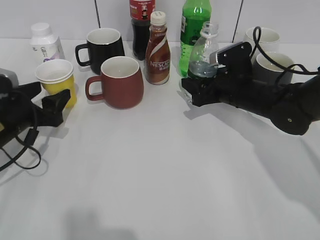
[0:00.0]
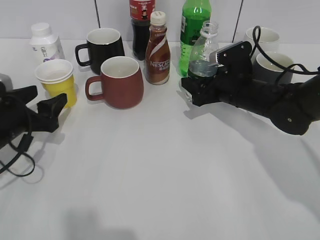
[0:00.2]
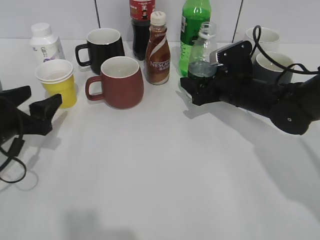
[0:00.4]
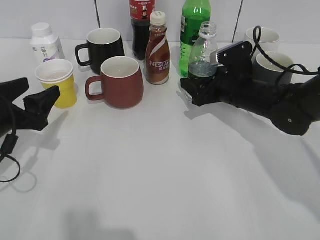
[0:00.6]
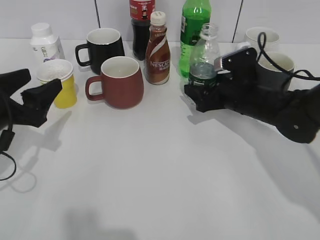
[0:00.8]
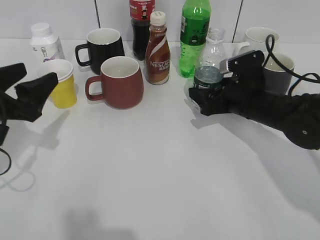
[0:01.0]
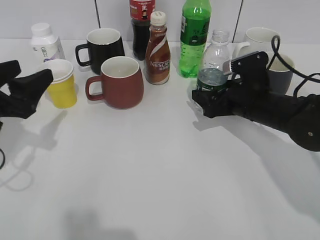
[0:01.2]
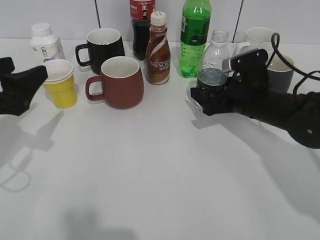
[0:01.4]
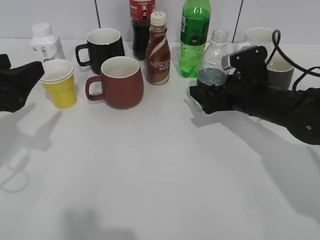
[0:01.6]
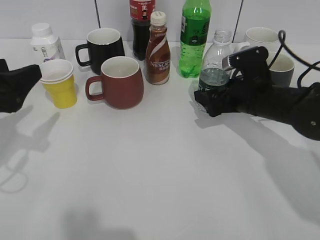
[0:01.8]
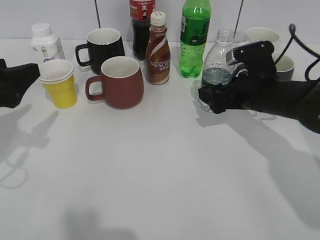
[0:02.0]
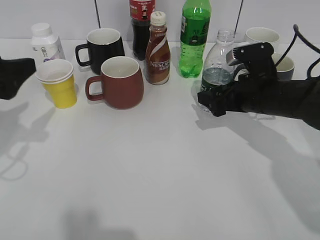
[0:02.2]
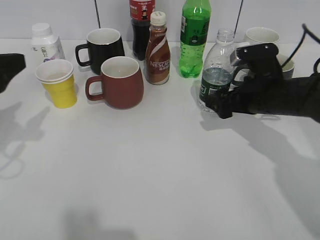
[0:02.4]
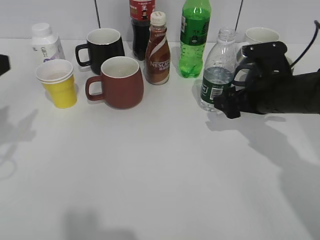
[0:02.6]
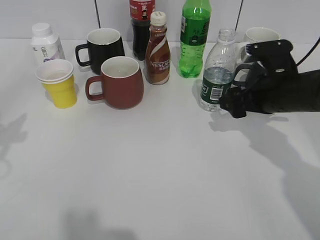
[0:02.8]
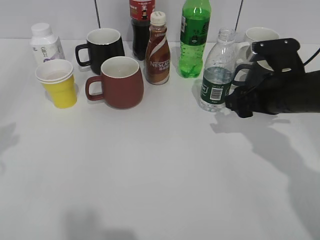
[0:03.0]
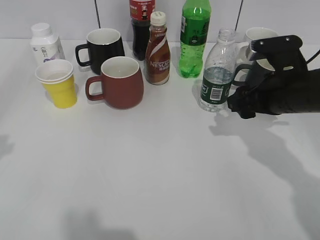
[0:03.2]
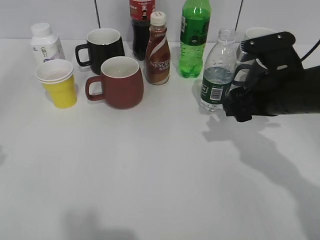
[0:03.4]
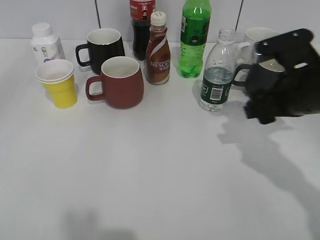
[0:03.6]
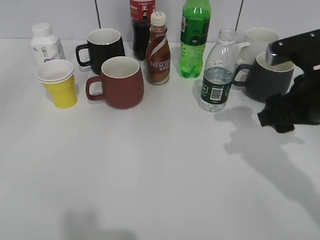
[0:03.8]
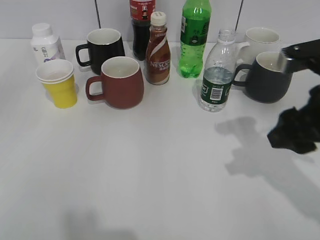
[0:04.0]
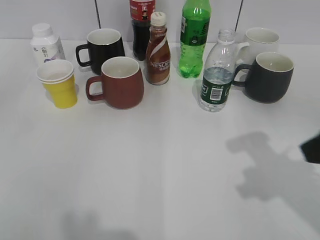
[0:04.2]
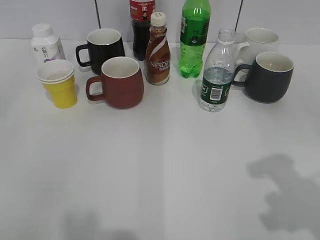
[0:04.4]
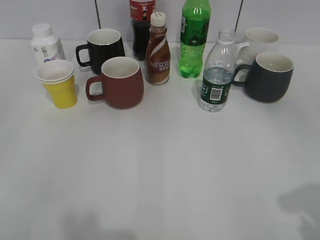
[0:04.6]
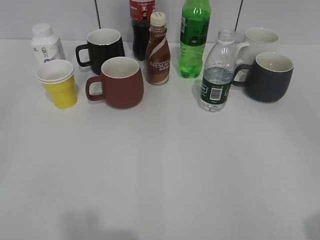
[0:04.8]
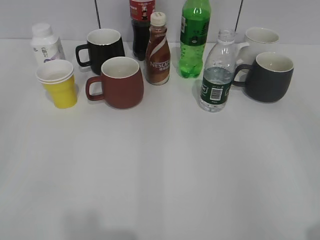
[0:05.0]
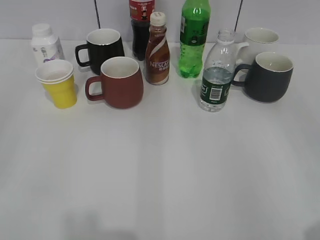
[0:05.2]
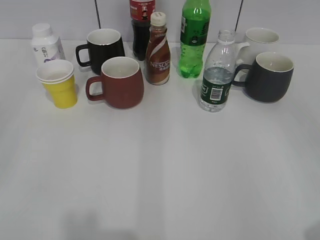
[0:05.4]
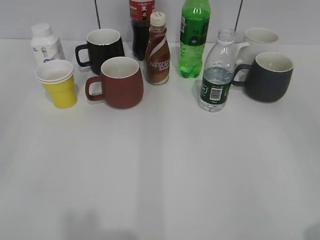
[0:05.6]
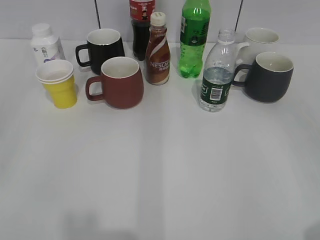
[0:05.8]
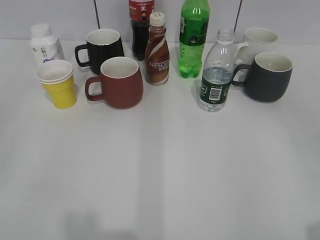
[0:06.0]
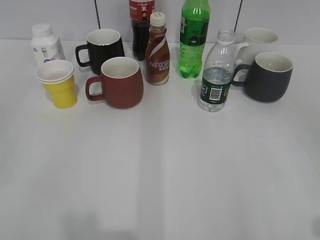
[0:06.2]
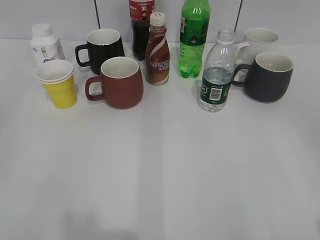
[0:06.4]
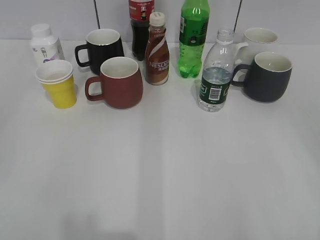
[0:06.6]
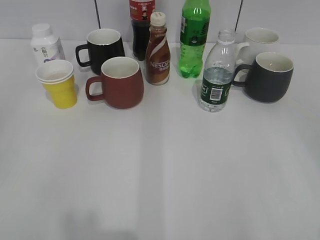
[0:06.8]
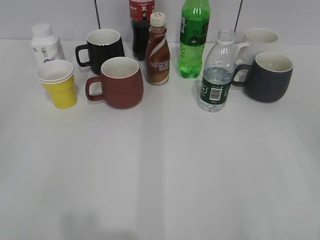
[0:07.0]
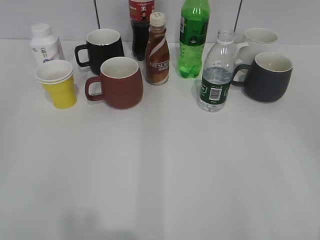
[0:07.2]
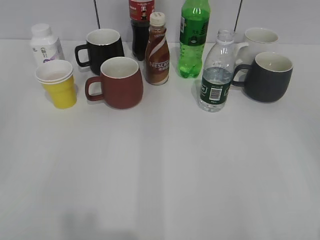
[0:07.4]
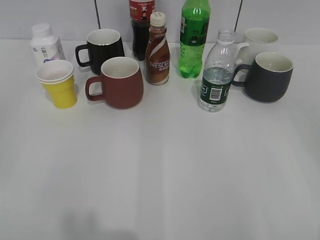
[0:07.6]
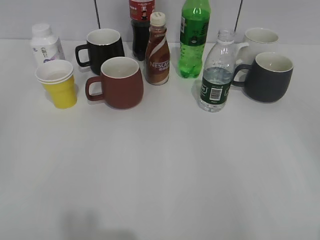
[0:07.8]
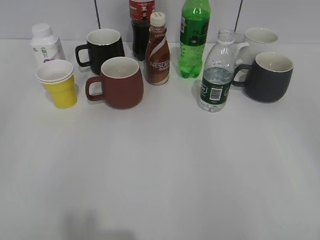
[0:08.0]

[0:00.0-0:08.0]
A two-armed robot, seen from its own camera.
Step, 0:00.0 to 0:02.4: Place the water bottle on the table with right gripper.
0:00.0 to 0:01.6: The left gripper shifts about 10 cm upward and backward, while the right gripper opens up.
0:01.6 to 0:03.2: The right gripper moves upward, roughly 5 cm, and closes its fingers. The left gripper heads upward, covering some 10 cm.
0:03.2 to 0:04.8: The left gripper moves backward, some 20 cm. Meanwhile the right gripper goes about 30 cm backward, upward and to the right, and closes.

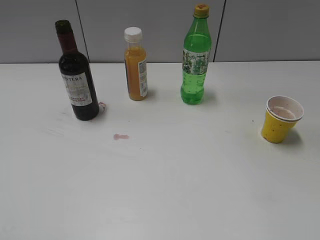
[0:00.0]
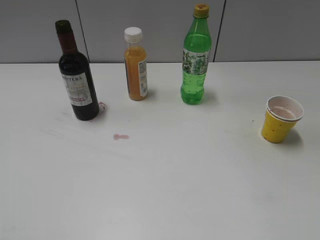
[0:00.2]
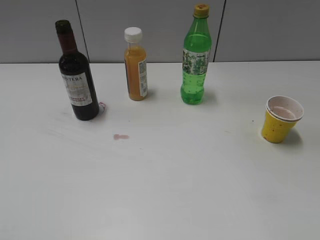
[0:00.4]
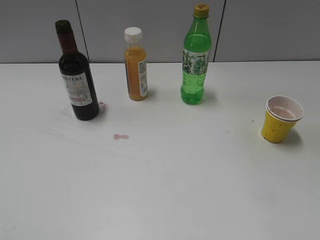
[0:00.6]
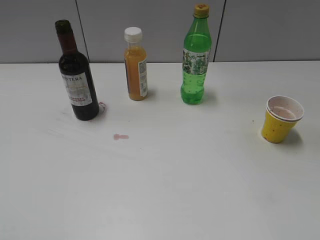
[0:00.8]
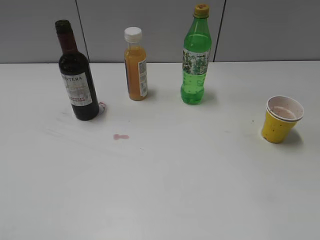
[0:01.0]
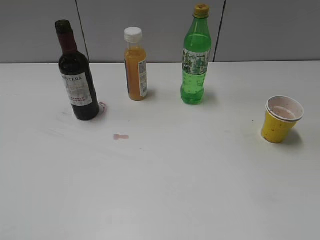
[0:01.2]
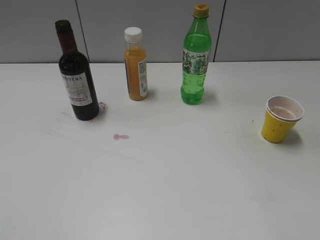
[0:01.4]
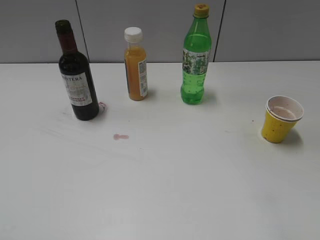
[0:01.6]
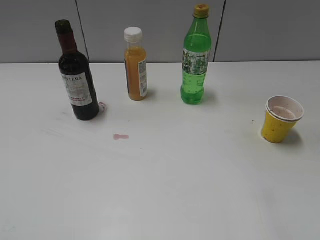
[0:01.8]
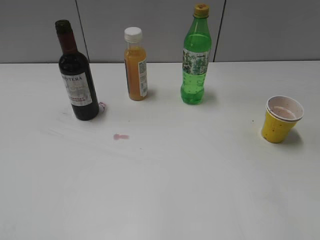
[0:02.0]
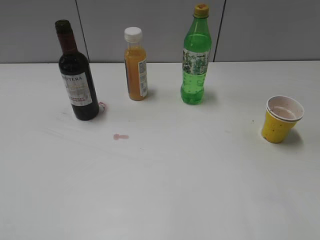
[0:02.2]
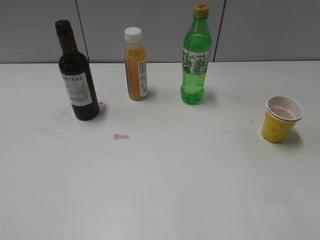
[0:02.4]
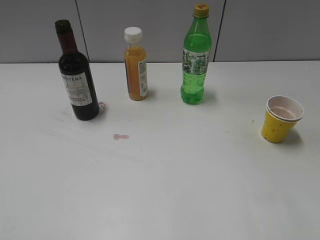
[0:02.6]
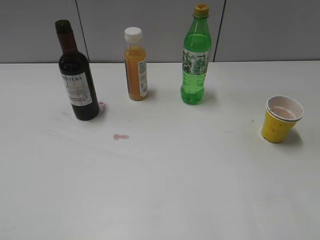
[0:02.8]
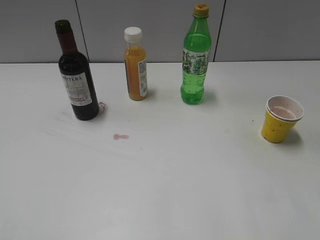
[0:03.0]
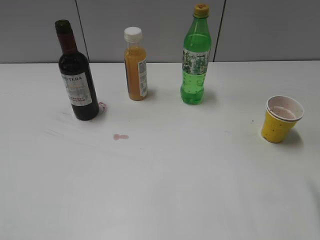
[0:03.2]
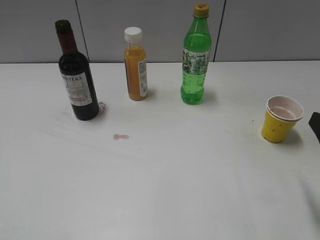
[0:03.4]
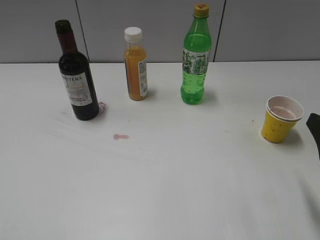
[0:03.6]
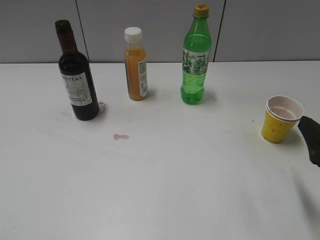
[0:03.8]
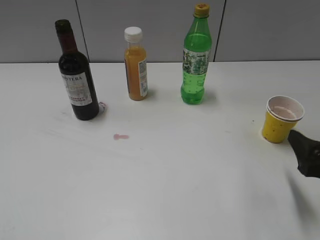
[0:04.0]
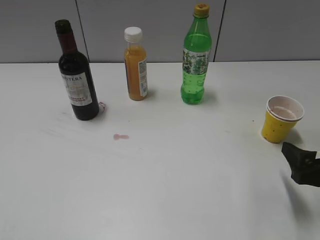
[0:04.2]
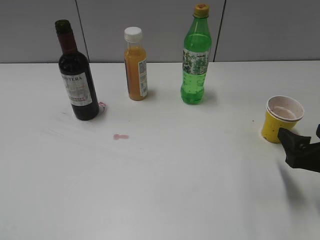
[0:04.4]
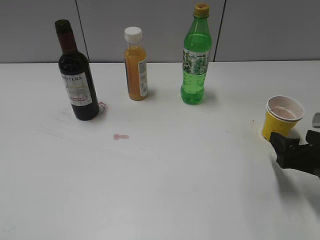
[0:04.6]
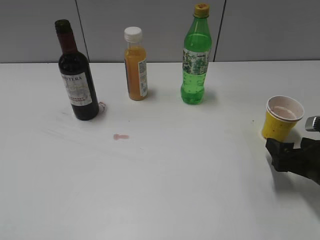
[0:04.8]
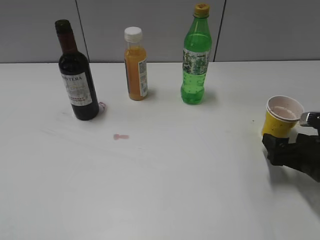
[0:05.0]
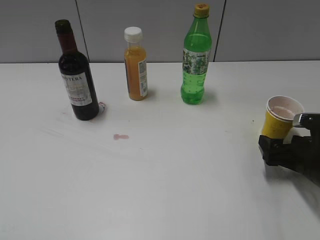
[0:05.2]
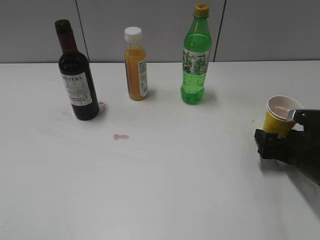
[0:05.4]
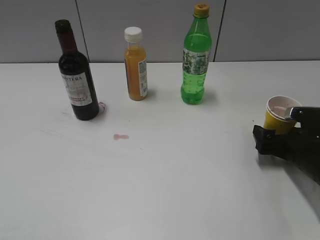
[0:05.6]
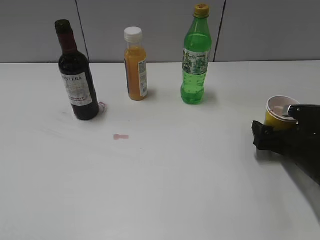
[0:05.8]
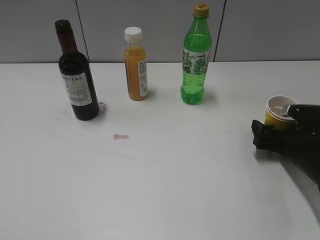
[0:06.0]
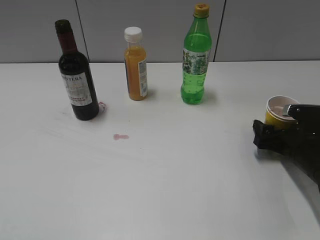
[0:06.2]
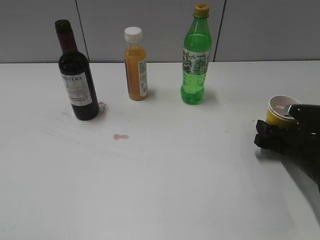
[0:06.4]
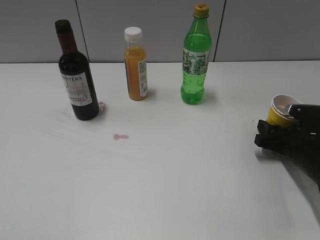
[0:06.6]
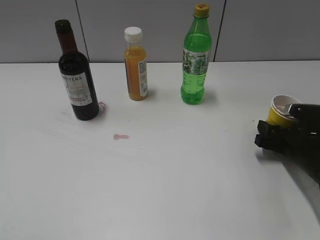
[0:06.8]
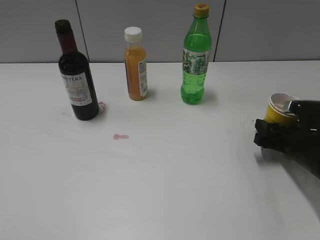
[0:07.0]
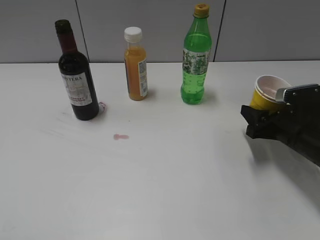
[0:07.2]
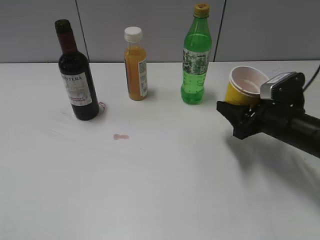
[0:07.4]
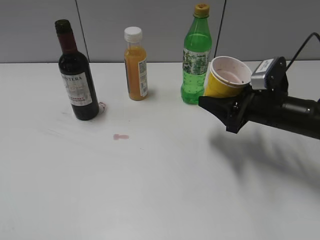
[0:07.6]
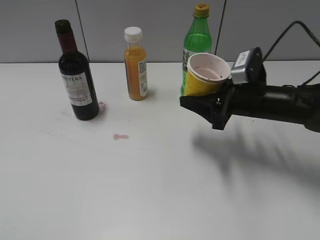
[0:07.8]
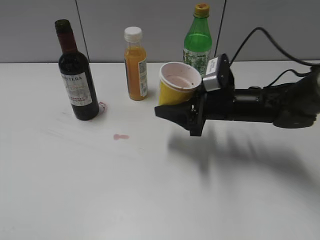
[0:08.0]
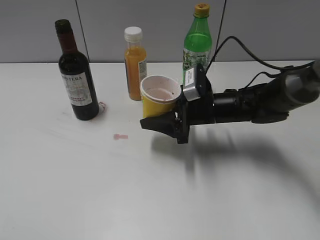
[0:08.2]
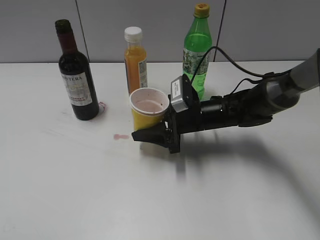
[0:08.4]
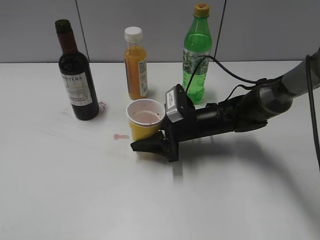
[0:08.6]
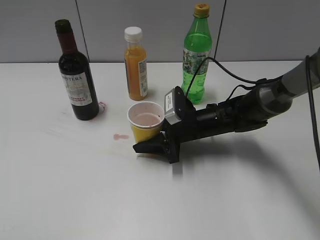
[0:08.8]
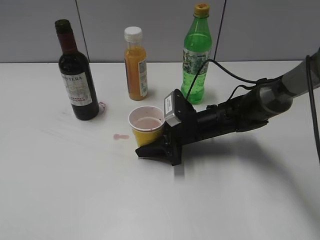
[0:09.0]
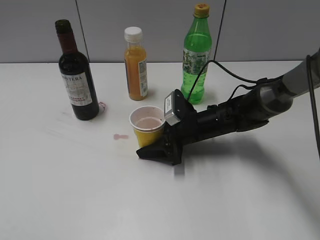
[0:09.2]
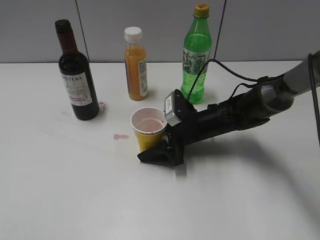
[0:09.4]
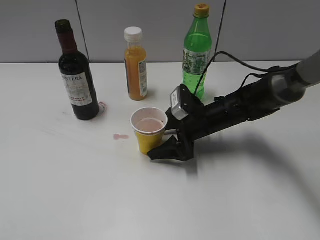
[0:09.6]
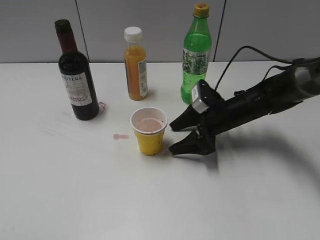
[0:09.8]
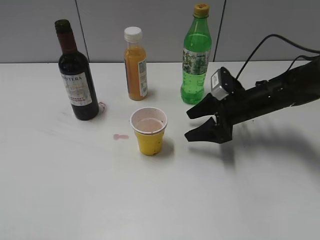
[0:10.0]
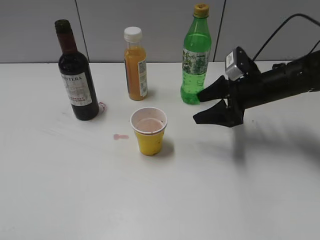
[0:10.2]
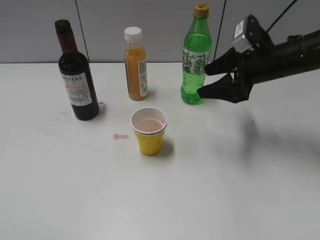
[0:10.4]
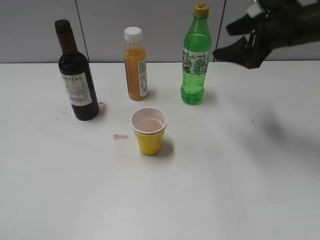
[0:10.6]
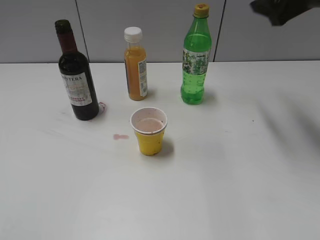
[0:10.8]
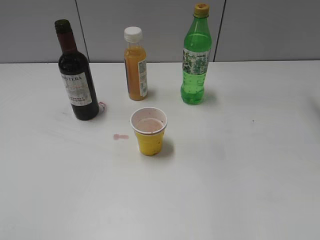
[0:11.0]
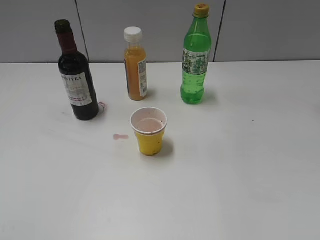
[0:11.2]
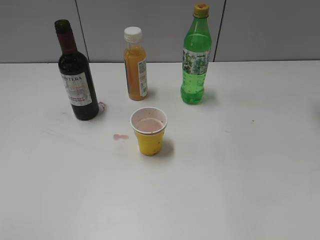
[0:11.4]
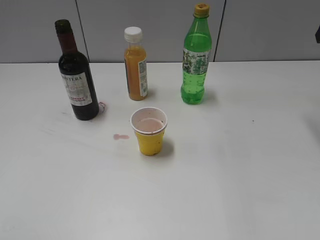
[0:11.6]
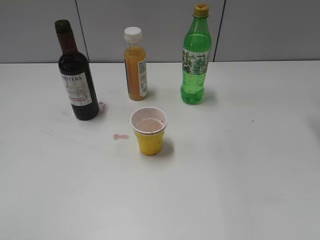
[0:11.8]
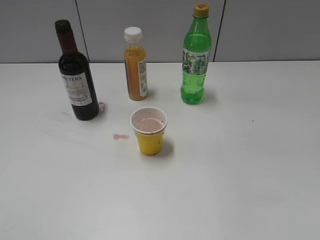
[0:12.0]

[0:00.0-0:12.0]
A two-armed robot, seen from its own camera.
Step, 0:01.0 to 0:06.4: Grasp the yellow paper cup with right gripper.
Step, 0:06.6 to 0:09.6: Place the yellow paper cup on the table with right gripper.
0:03.0 to 0:04.4: The right gripper moves downward and forward, roughly 10 cm.
0:04.4 to 0:06.0: The right gripper shifts about 10 cm forward and downward.
0:06.0 to 0:07.6: The right gripper shifts some 10 cm upward and to the left, and closes up.
0:07.6 to 0:09.0: The right gripper is displaced to the left and downward by roughly 15 cm.
0:09.0 to 0:10.4: The right gripper is displaced upward and to the right by approximately 20 cm, and opens up.
0:10.4 to 0:12.0: The right gripper goes about 20 cm upward and to the right.

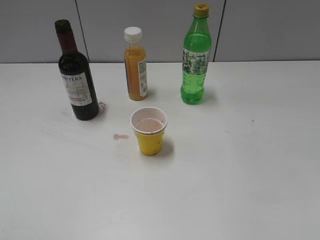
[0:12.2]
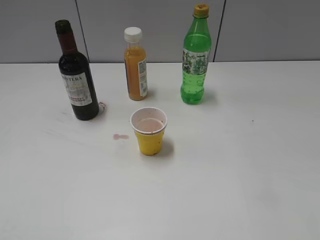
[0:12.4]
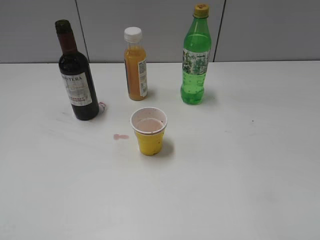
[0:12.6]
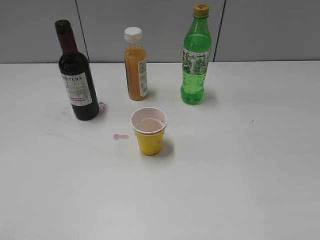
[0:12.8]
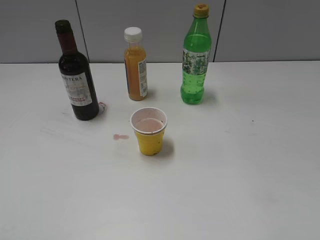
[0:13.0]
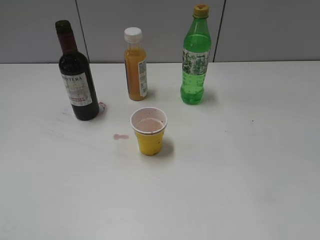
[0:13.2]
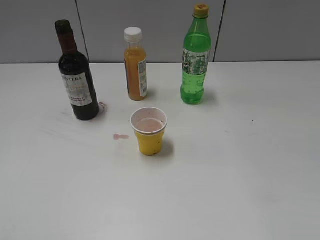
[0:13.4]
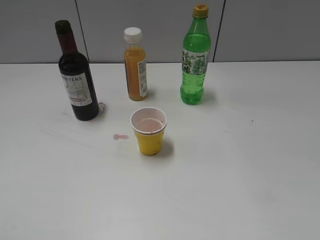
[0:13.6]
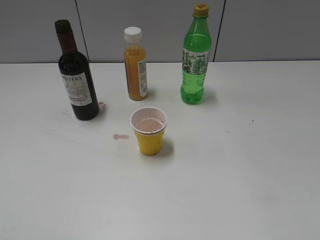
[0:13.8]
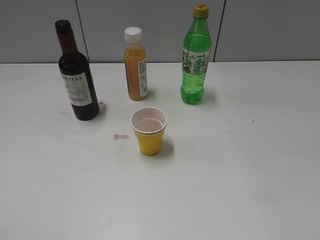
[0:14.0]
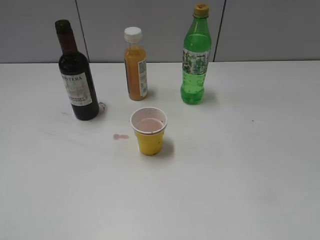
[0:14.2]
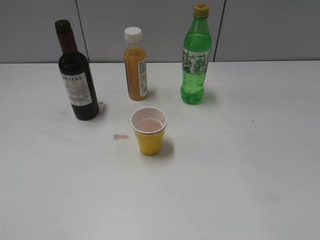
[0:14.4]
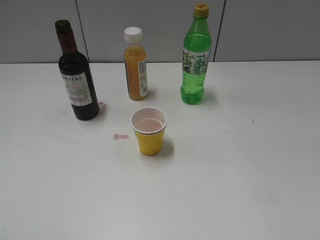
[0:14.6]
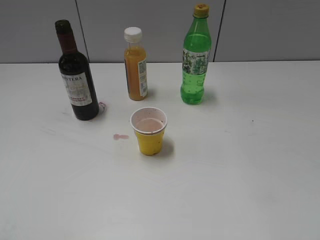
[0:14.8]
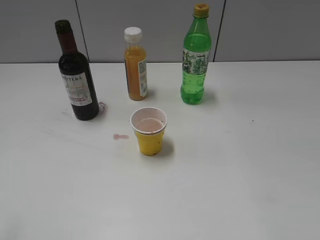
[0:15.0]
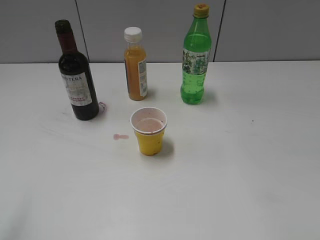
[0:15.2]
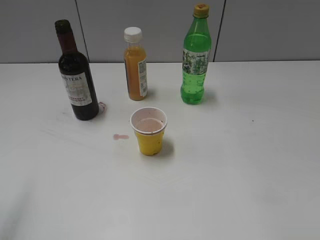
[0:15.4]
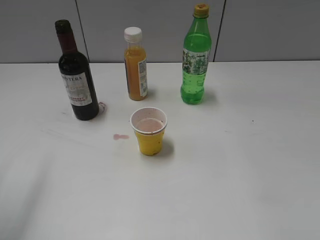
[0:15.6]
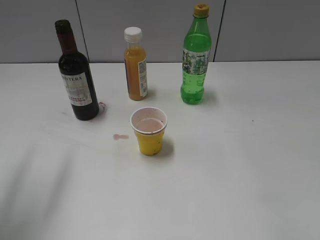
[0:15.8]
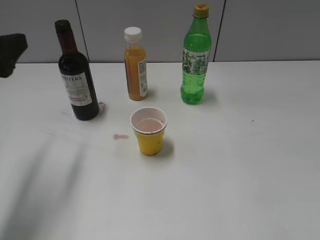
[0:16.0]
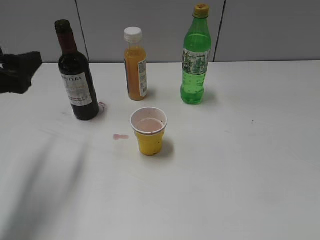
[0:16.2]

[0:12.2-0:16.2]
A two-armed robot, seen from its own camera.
0:14.8 to 0:16.2: The left gripper is displaced forward by about 20 cm.
